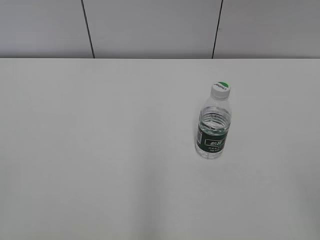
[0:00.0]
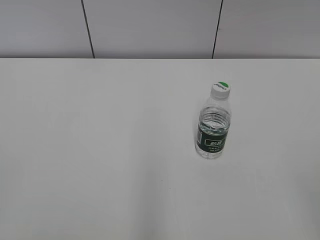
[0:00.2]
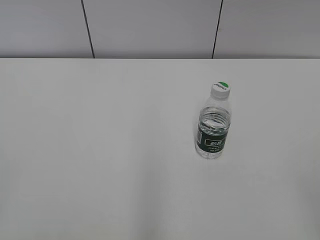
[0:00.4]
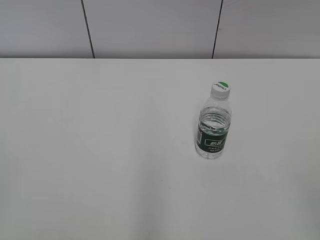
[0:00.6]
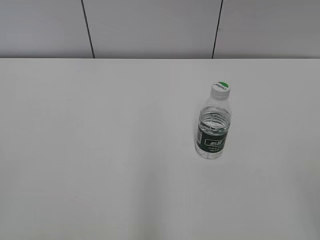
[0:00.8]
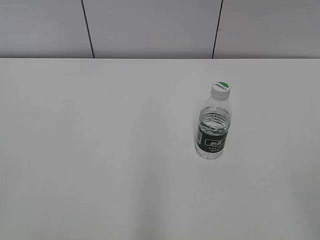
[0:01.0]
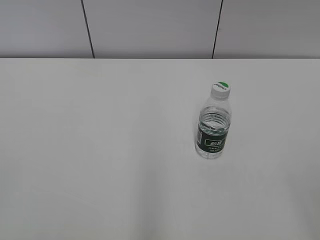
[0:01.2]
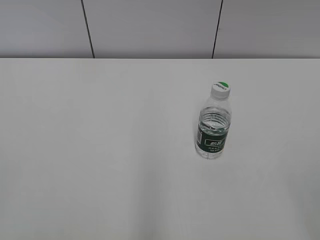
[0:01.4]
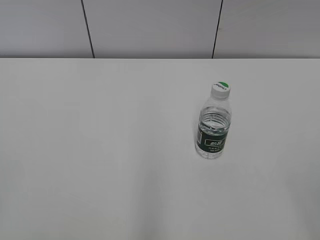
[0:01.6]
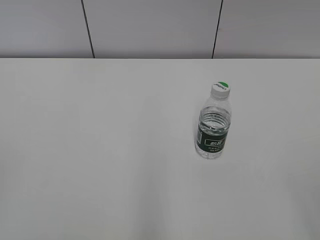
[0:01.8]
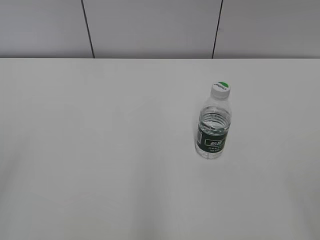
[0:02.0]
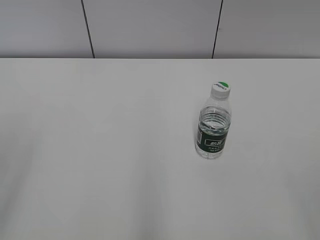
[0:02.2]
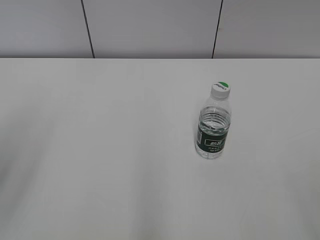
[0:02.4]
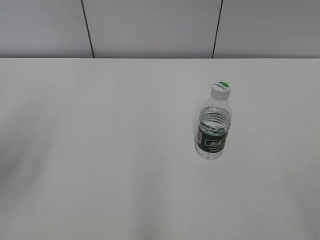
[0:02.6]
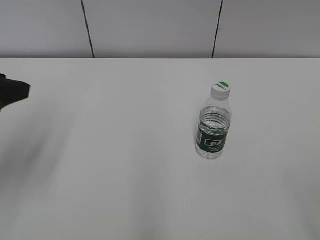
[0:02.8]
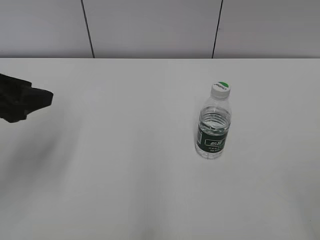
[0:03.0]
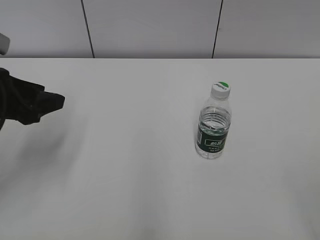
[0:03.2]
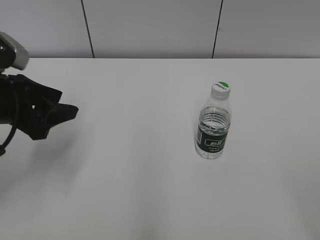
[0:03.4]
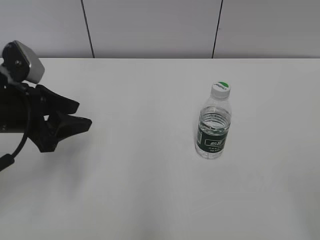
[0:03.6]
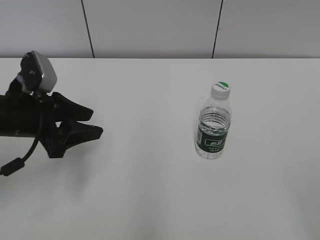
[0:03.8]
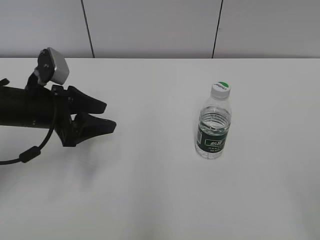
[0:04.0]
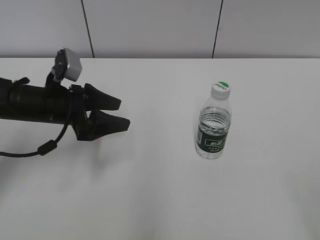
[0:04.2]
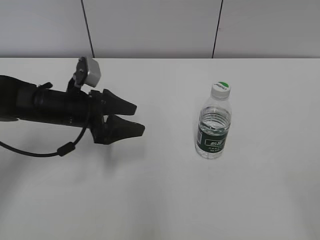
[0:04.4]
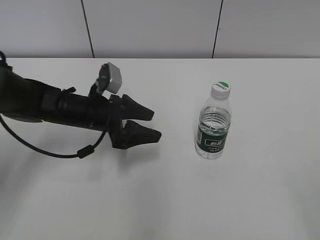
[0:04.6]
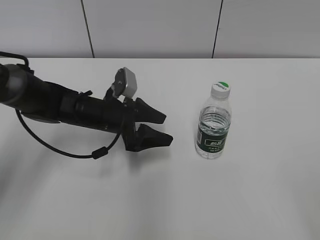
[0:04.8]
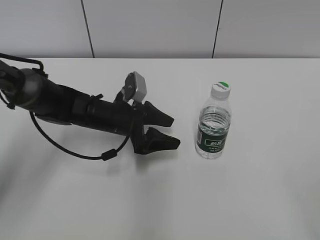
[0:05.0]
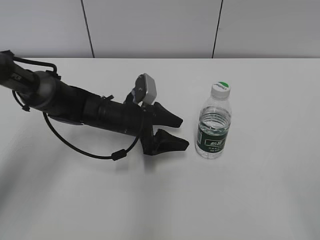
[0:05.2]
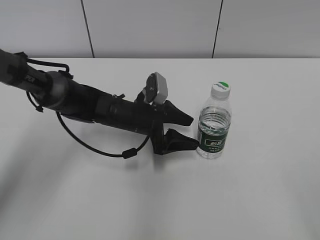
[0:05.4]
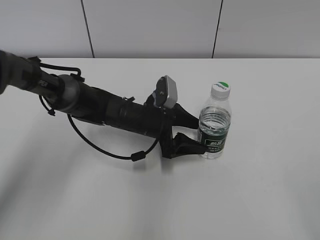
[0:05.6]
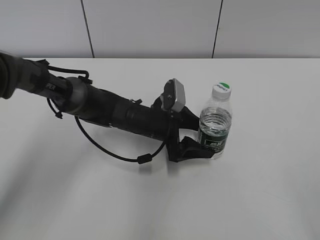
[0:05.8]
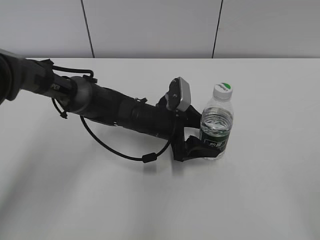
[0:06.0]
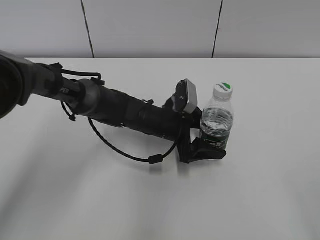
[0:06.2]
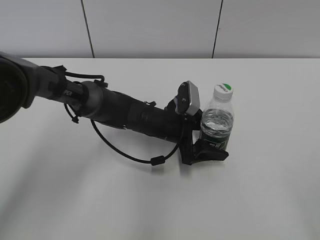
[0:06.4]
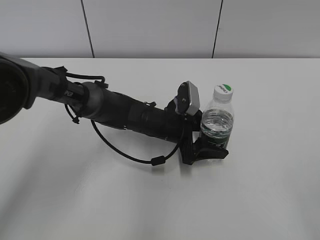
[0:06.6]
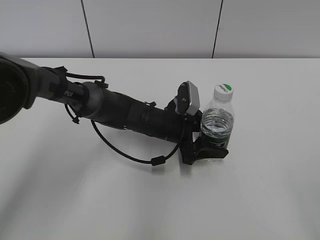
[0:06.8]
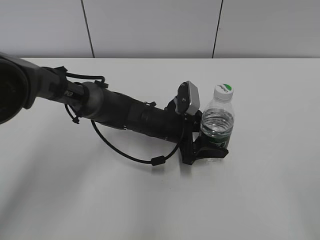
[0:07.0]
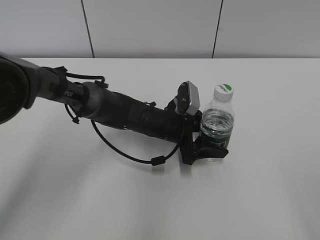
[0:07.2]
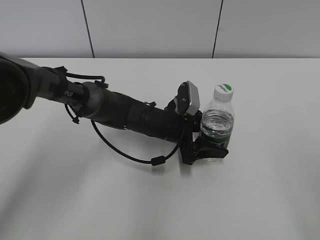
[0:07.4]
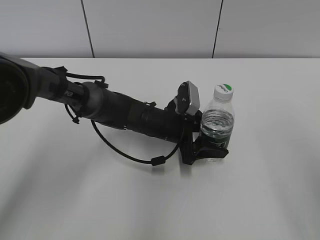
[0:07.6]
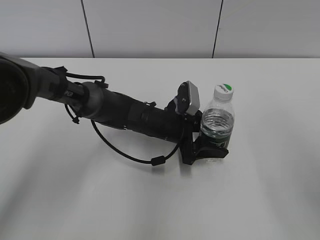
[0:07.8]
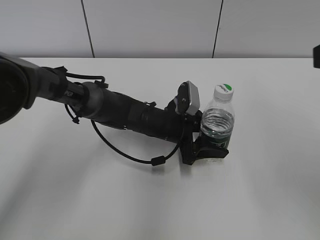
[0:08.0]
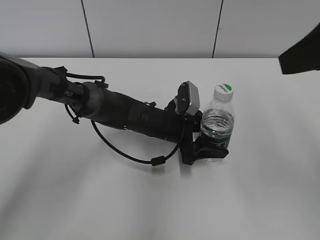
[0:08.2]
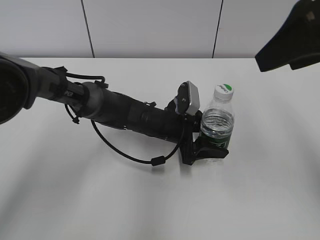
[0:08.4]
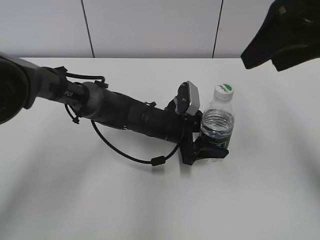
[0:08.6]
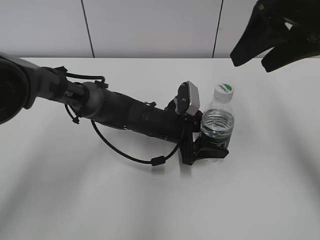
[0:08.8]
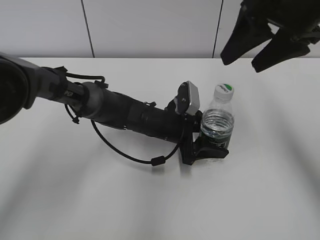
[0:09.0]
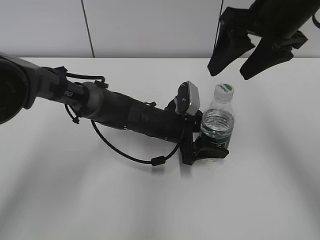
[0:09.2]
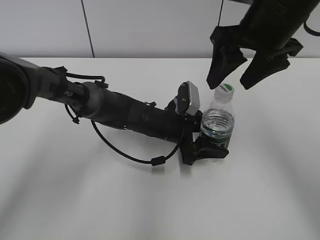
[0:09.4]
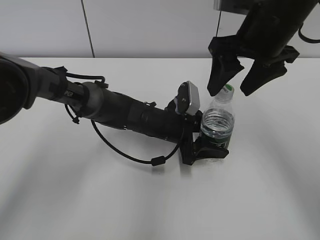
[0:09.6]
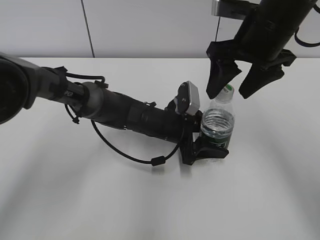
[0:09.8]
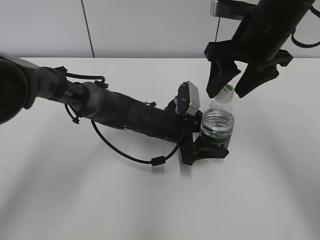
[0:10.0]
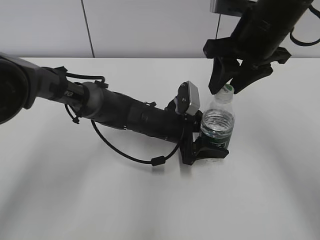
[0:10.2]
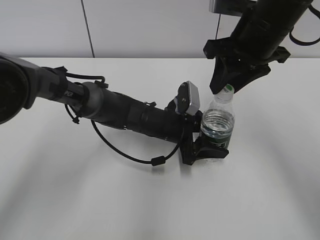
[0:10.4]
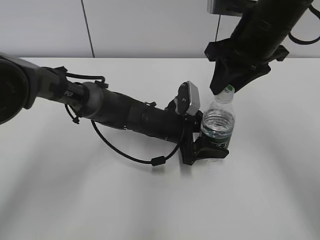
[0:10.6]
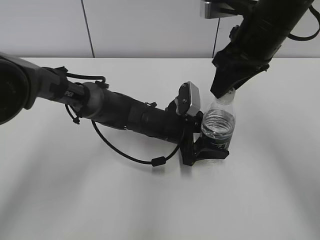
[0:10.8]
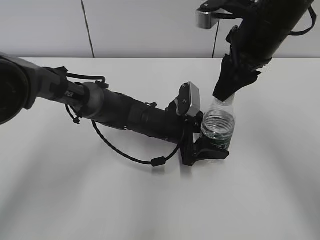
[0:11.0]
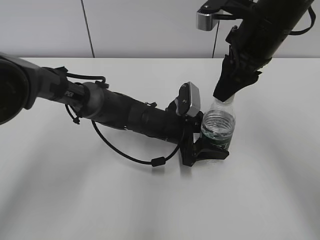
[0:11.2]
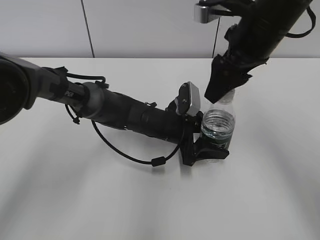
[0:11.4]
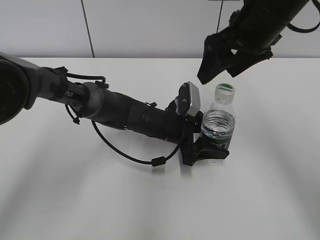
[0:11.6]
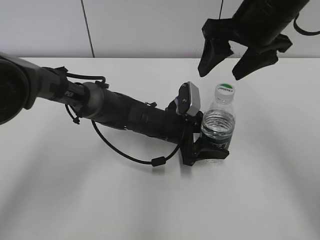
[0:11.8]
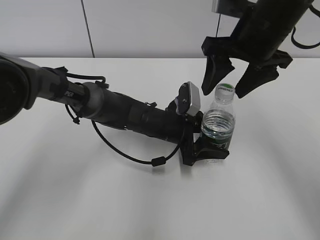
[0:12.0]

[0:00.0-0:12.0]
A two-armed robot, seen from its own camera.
Step, 0:00.0 to 0:06.0: Grab the C'estbon with the left hand.
0:01.6 to 0:03.0: The left gripper moves forward, some 25 cm, and opens.
0:03.0 to 0:04.4: The left gripper goes roughly 20 cm downward, forward and to the right, and opens.
0:04.4 to 0:06.0: The left gripper heads to the right, covering approximately 15 cm.
0:06.0 to 0:07.6: The right gripper is displaced forward by roughly 10 cm.
0:07.6 to 0:09.0: The right gripper shifts about 25 cm forward.
0:09.0 to 0:10.4: The right gripper shifts about 5 cm downward, and closes.
0:10.4 to 0:12.0: The right gripper opens its fingers.

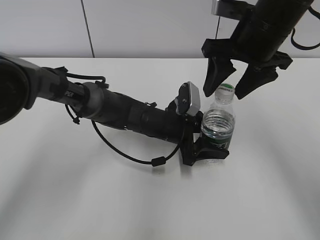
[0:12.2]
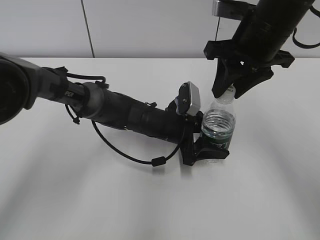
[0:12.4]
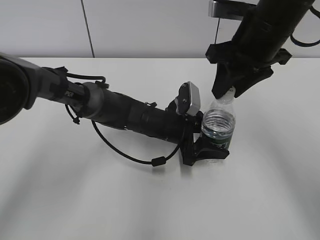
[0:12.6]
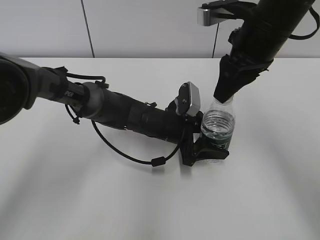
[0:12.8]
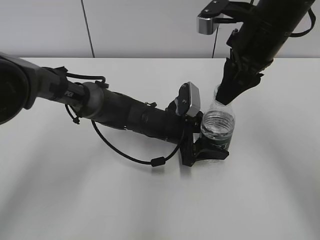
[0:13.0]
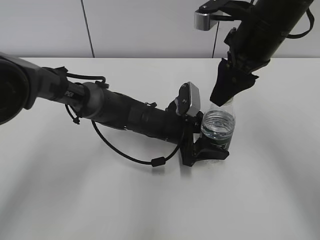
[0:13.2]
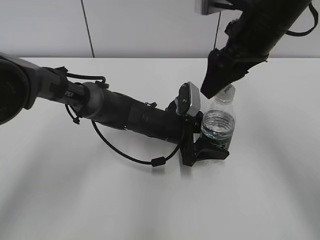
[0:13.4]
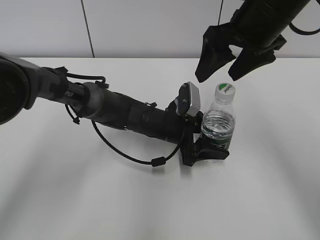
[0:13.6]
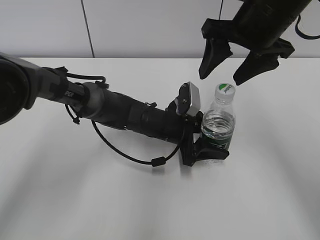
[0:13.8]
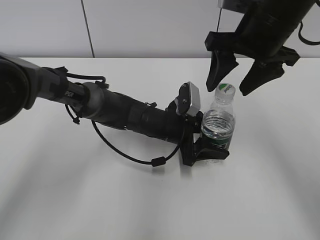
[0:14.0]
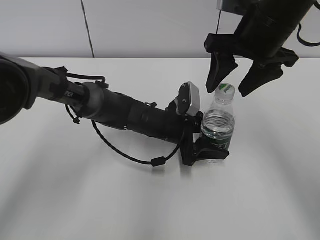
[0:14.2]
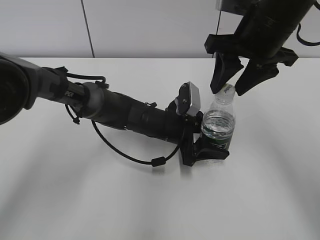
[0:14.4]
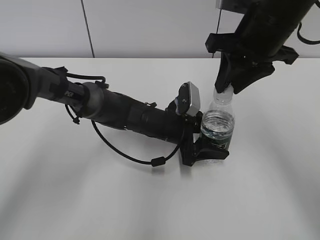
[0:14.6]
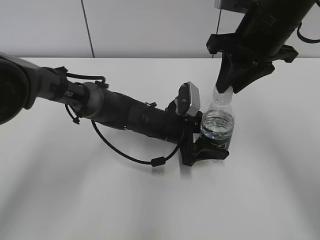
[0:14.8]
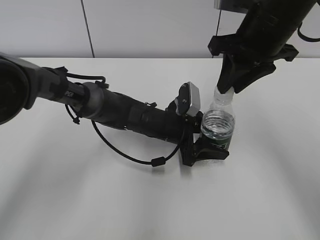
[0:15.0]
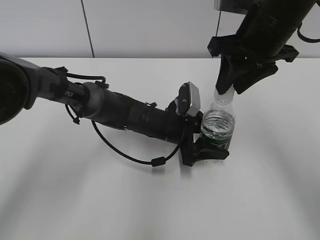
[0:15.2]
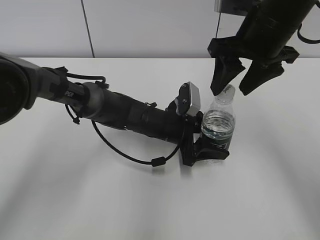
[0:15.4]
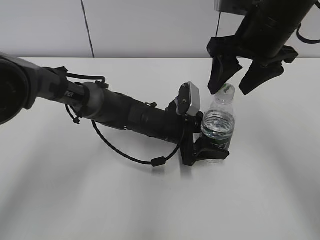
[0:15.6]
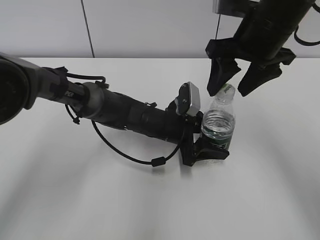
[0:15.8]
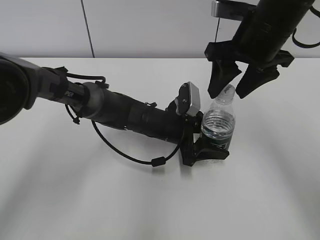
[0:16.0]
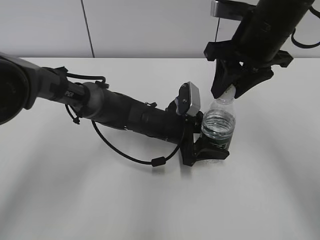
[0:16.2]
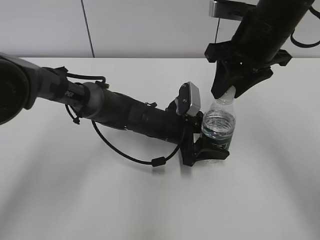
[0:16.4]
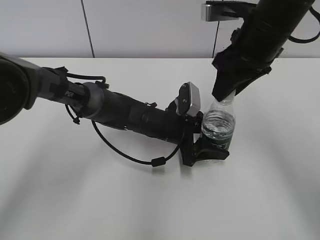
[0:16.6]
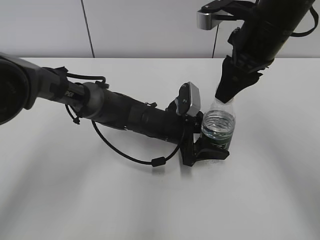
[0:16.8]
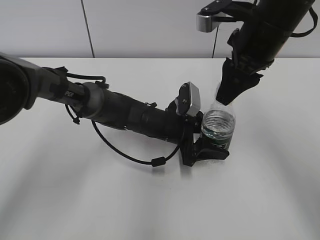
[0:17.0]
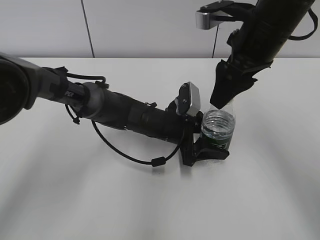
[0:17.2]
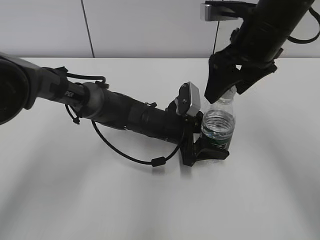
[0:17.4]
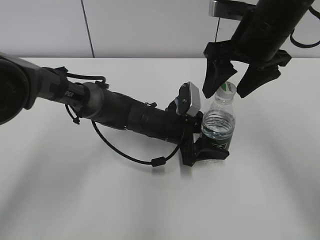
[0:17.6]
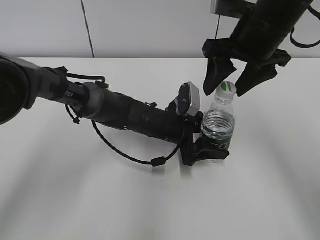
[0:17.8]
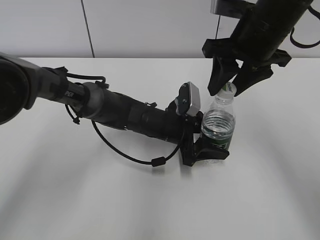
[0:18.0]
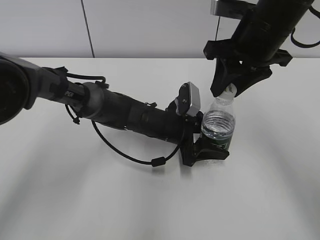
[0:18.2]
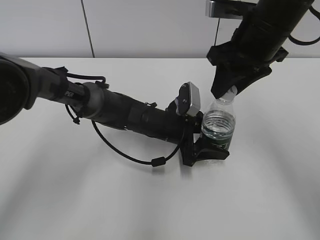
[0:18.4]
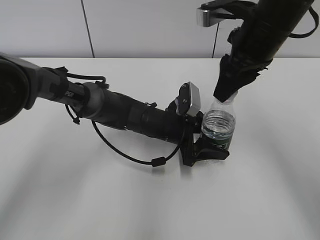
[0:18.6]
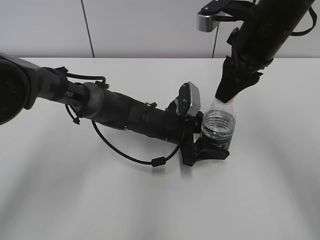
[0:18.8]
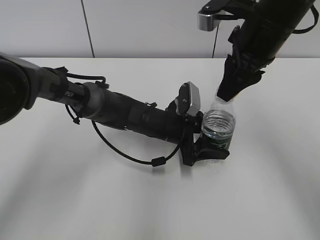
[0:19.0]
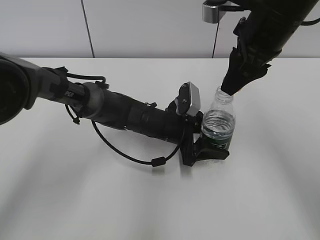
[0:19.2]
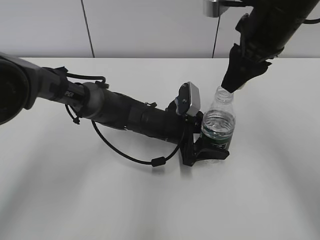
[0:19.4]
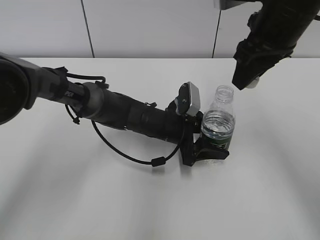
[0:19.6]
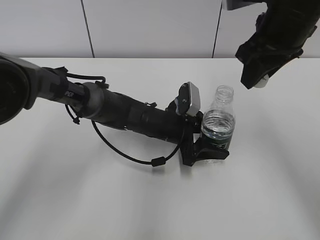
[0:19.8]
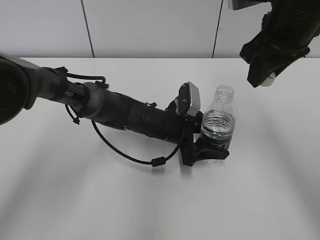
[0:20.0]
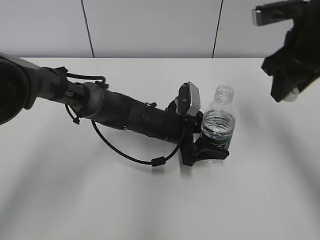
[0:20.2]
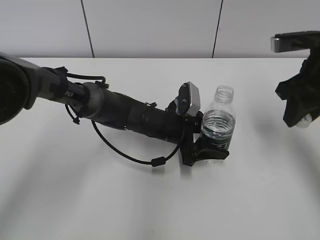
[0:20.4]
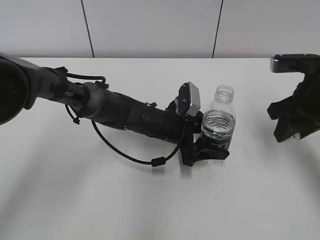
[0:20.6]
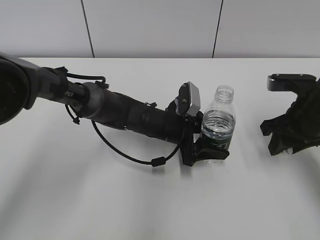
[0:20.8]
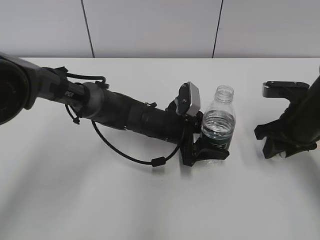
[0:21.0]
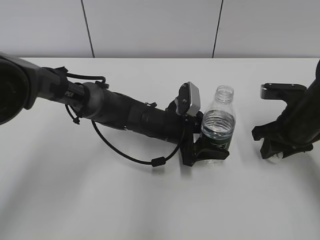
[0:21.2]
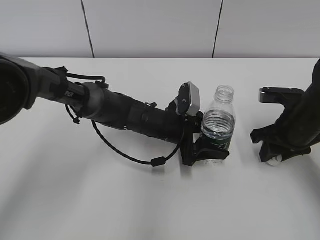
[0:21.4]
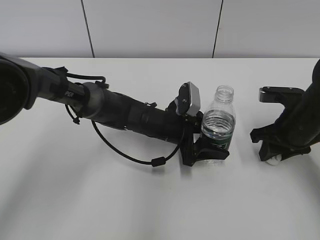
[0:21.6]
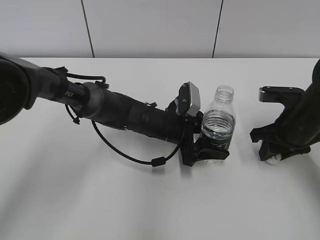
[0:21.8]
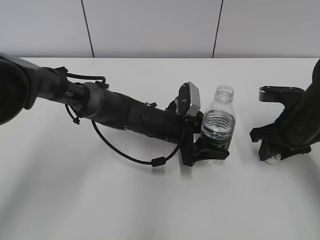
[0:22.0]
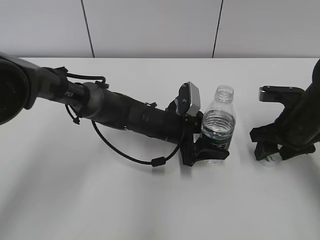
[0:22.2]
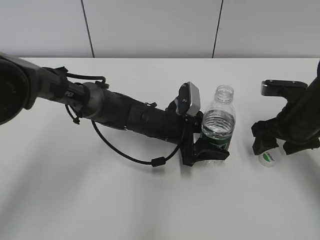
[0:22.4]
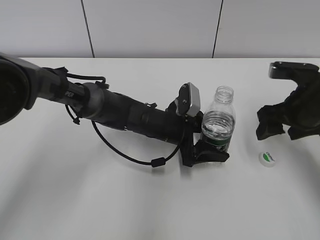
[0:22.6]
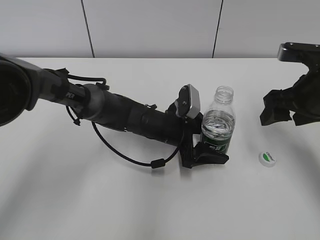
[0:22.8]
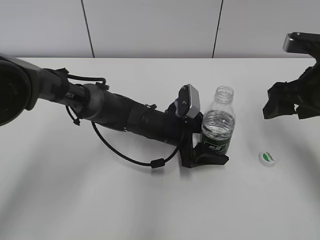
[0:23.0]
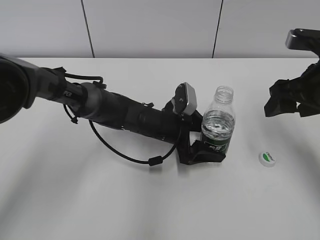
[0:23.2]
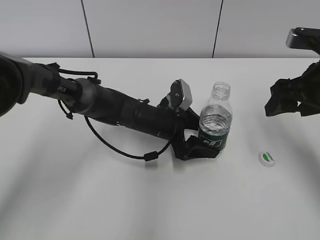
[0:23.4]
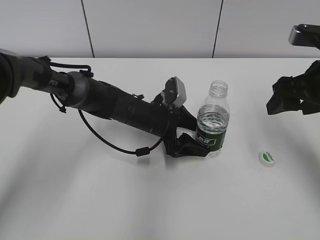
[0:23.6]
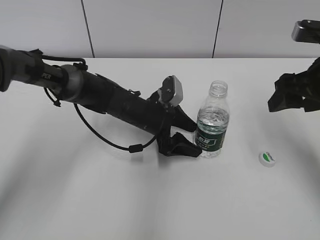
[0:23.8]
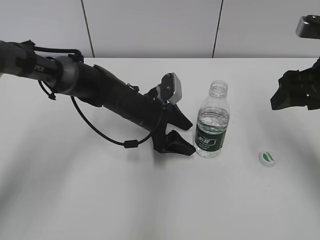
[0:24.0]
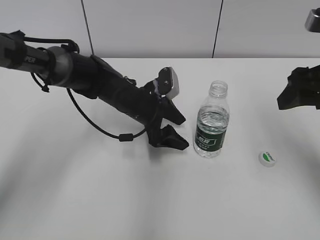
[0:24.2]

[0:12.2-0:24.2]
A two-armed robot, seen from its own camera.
Step, 0:19.4 to 0:22.4: Place the bottle cap on the table with the right hand.
Step, 0:22.6 to 0:24.0: Place the C'estbon with the left hand.
0:12.2 to 0:13.8: The right gripper closes and opens again.
0:13.8 to 0:15.2: The right gripper closes its fingers.
0:15.2 to 0:16.6: The right gripper opens, then closes again.
0:16.6 to 0:18.2: The right gripper opens and closes again.
0:19.8 to 0:21.2: The right gripper is displaced downward and to the right by about 20 cm.
0:21.2 to 0:22.6: The right gripper opens its fingers.
0:22.6 to 0:24.2: The left gripper moves to the left, approximately 5 cm. The right gripper moves upward, approximately 10 cm.
